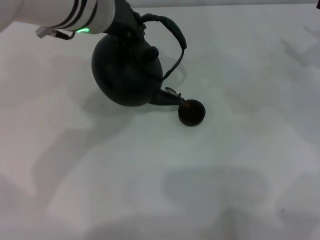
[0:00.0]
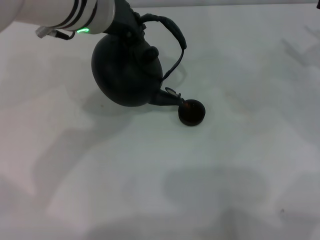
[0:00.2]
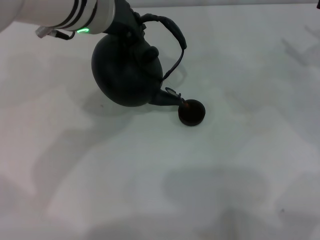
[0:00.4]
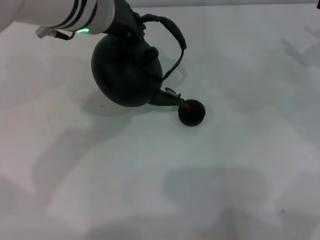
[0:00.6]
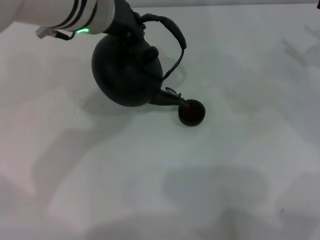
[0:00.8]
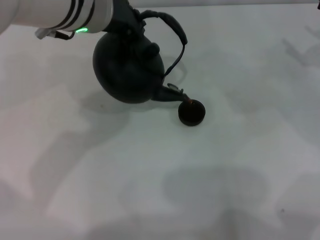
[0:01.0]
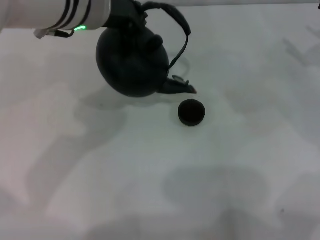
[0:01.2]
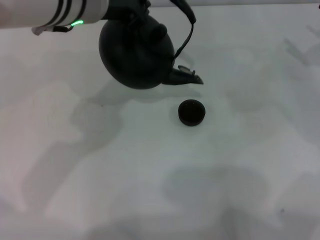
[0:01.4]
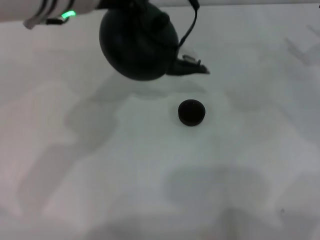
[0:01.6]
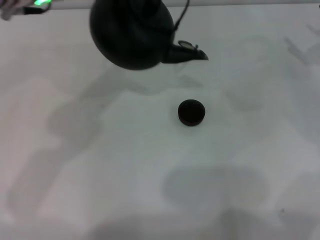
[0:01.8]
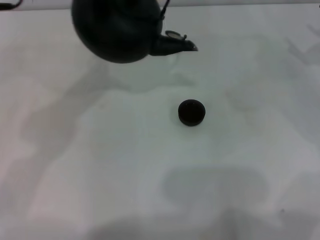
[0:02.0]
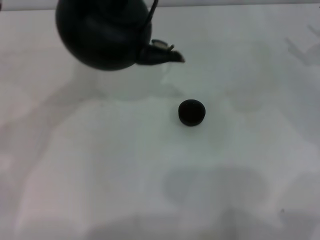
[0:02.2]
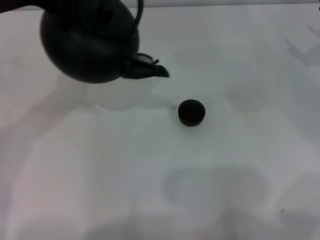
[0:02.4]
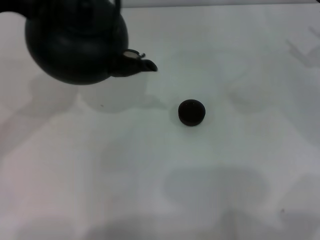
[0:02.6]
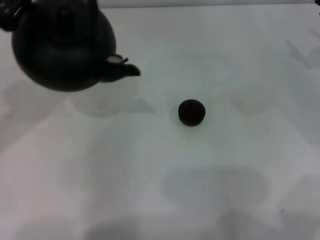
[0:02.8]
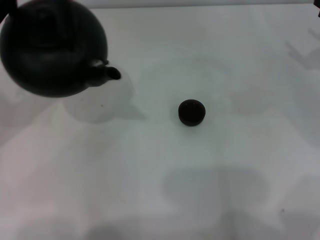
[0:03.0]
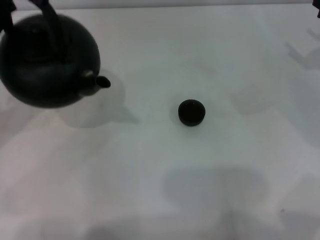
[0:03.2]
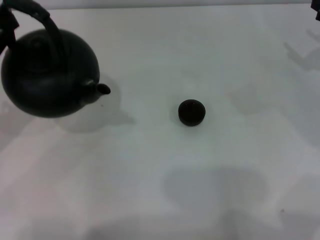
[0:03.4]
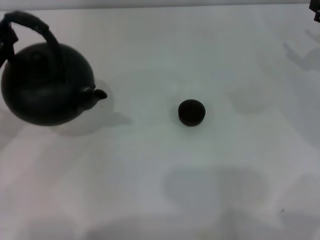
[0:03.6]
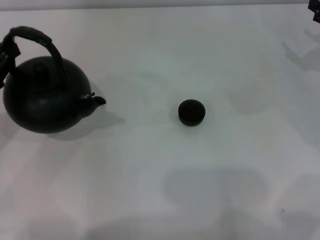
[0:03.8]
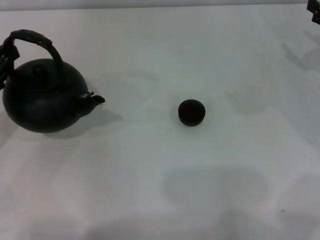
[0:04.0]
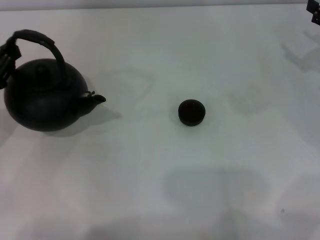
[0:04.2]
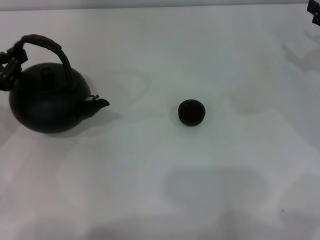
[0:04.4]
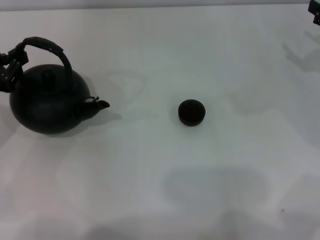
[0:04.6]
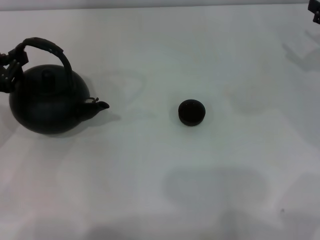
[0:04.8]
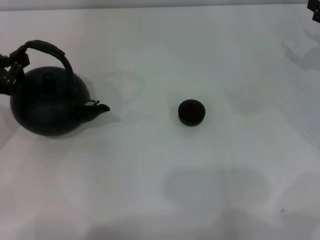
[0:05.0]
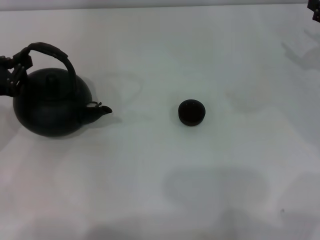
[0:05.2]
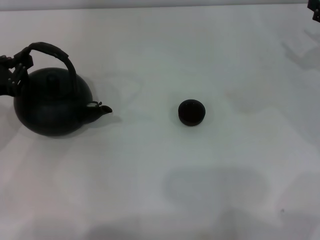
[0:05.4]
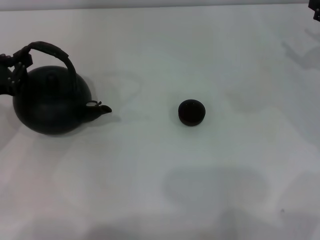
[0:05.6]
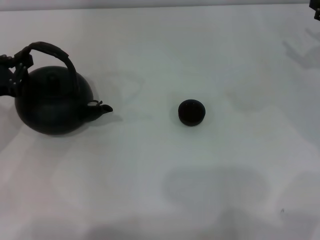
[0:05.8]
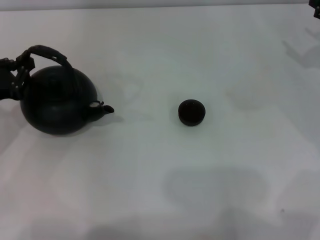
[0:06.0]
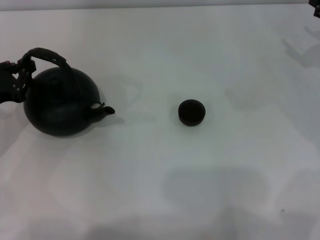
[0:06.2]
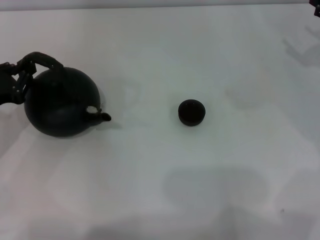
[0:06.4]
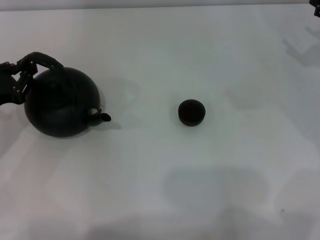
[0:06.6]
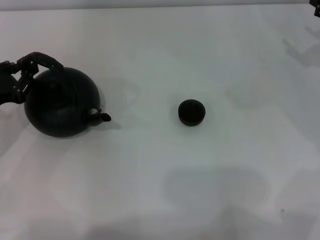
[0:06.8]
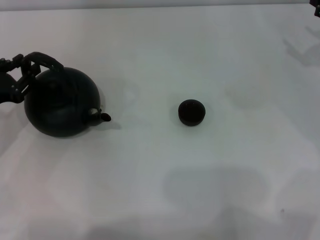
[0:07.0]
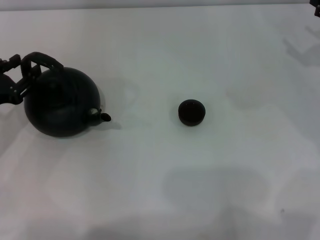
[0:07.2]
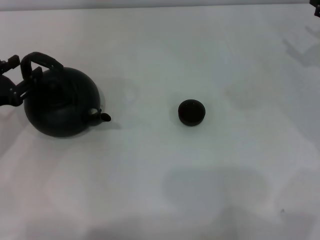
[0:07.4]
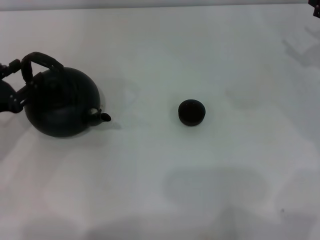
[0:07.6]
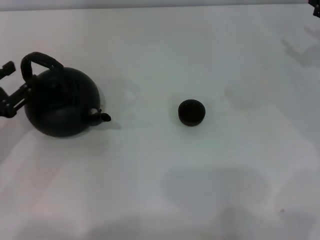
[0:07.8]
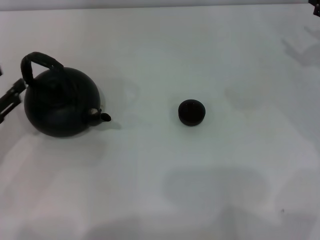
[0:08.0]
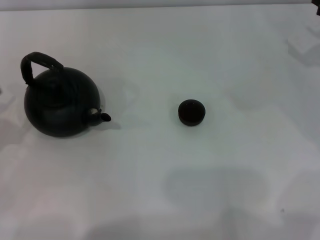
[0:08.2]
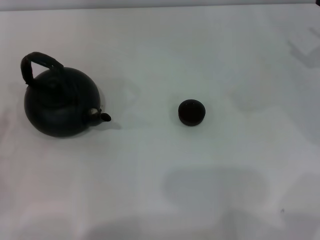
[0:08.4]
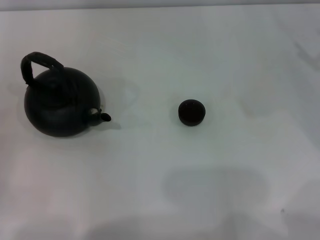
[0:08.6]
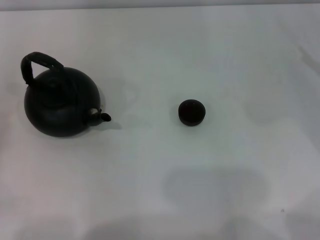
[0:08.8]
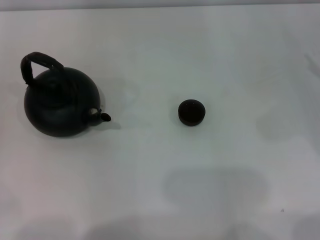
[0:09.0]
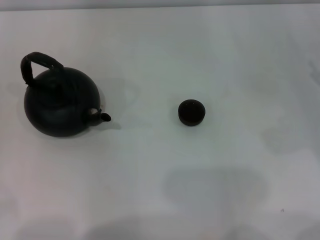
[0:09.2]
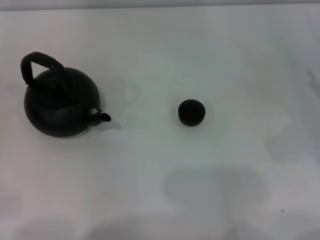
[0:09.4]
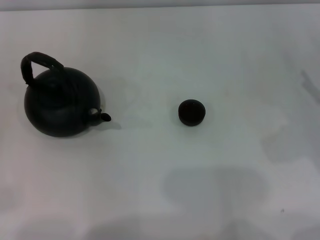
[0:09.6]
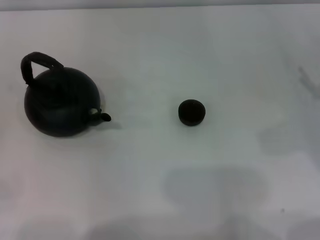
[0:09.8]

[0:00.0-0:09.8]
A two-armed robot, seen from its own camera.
Task of the whole recording: Grasp the handle of the teapot with one hand and pour tea into the teacup.
Step, 0:01.6 to 0:07.6: Put down the teapot with the left gripper.
0:00.0 to 0:01.4: The grippers make only small movements.
0:01.4 to 0:02.8: The left gripper shifts some 20 cm to the left.
0:02.8 to 0:04.2: The left gripper moves downward, about 10 cm.
0:04.2 to 0:07.0: There are only small adjustments of the grippers.
0:07.0 to 0:08.4: The left gripper shifts approximately 10 cm backward and to the left, and opens up.
